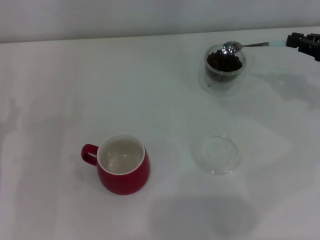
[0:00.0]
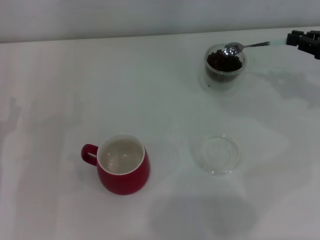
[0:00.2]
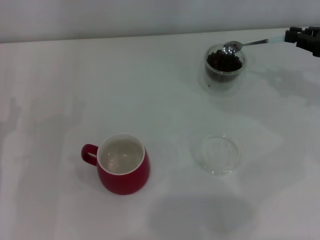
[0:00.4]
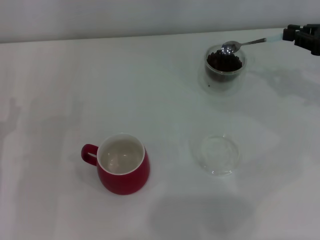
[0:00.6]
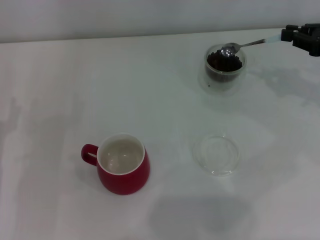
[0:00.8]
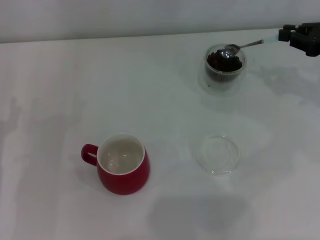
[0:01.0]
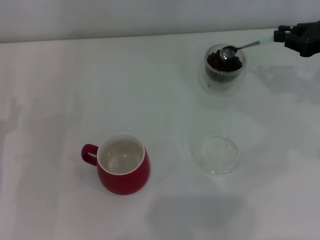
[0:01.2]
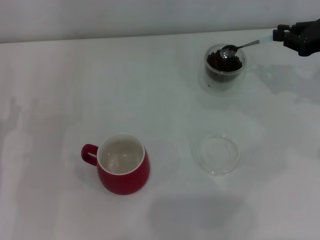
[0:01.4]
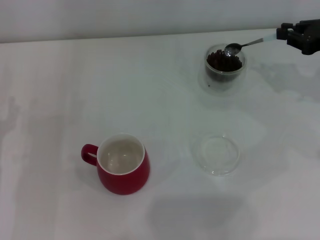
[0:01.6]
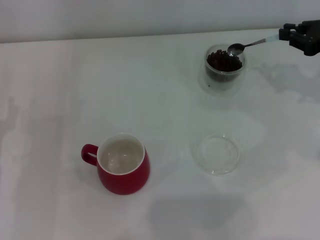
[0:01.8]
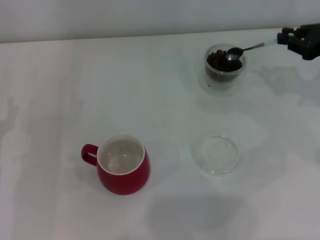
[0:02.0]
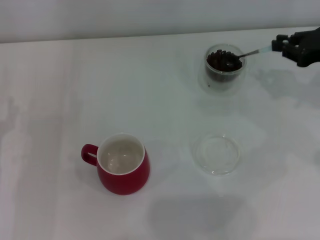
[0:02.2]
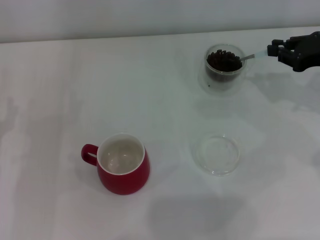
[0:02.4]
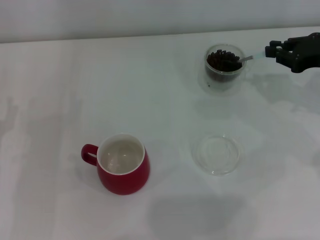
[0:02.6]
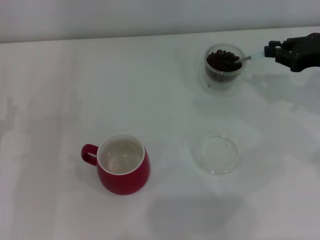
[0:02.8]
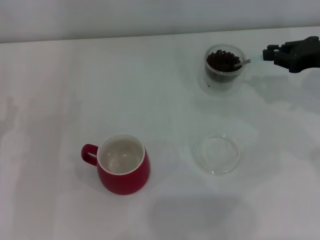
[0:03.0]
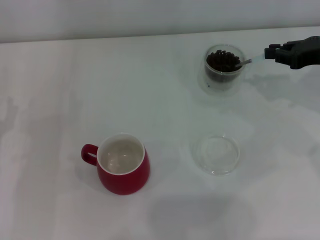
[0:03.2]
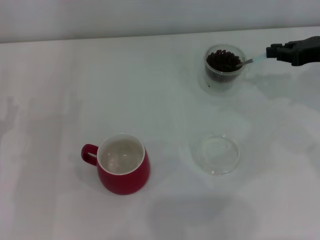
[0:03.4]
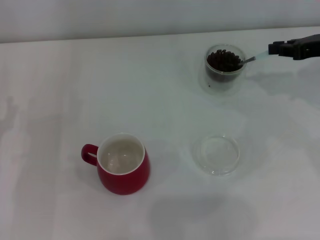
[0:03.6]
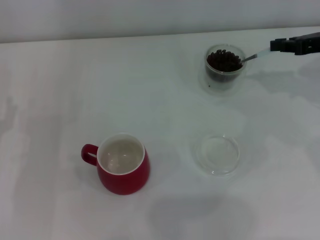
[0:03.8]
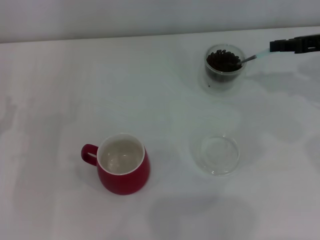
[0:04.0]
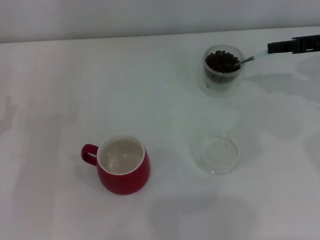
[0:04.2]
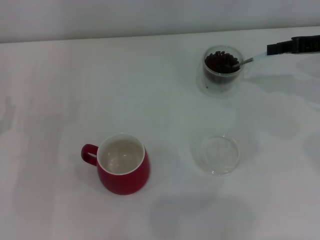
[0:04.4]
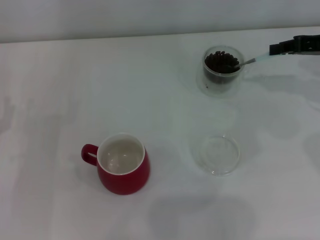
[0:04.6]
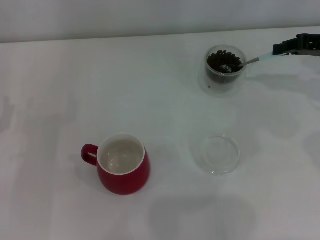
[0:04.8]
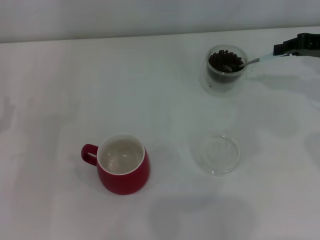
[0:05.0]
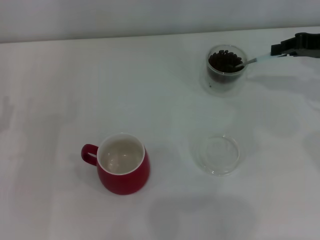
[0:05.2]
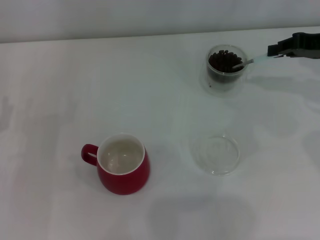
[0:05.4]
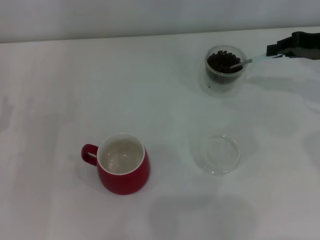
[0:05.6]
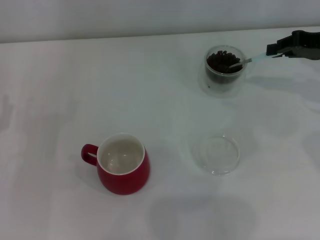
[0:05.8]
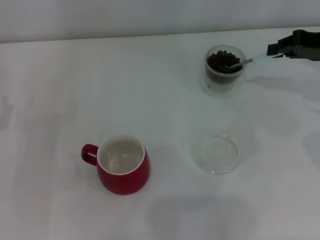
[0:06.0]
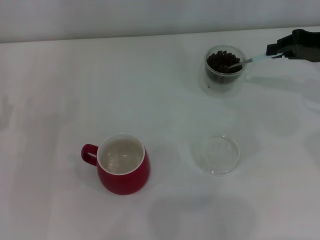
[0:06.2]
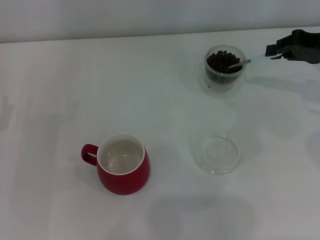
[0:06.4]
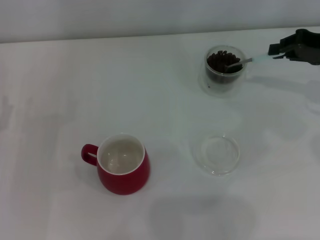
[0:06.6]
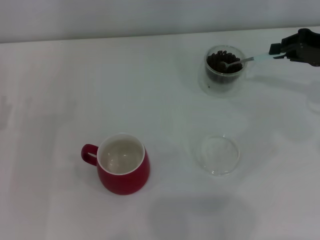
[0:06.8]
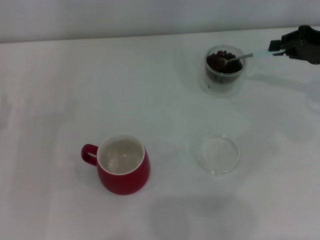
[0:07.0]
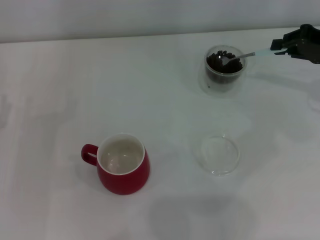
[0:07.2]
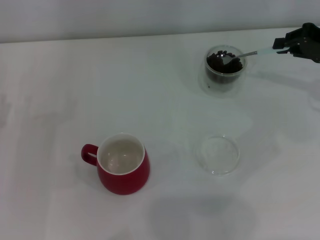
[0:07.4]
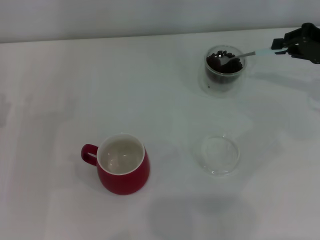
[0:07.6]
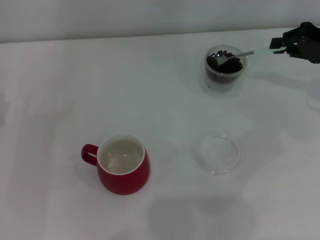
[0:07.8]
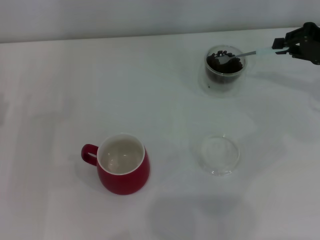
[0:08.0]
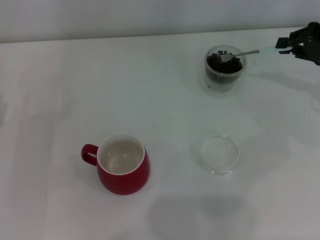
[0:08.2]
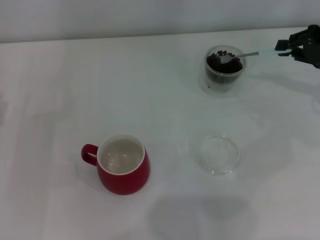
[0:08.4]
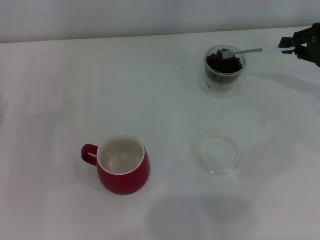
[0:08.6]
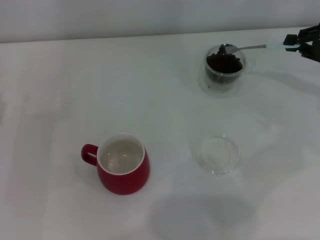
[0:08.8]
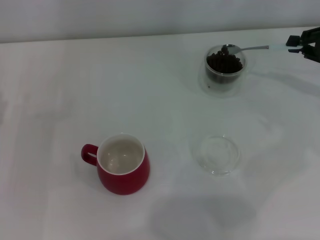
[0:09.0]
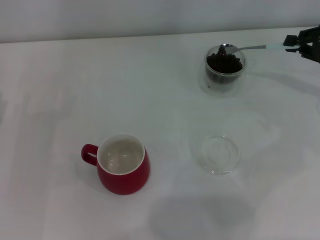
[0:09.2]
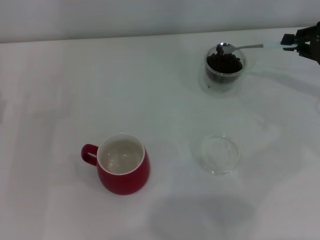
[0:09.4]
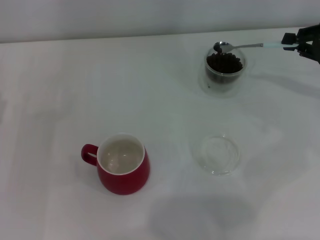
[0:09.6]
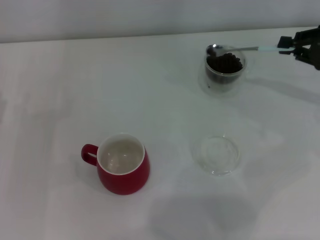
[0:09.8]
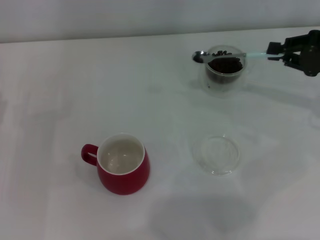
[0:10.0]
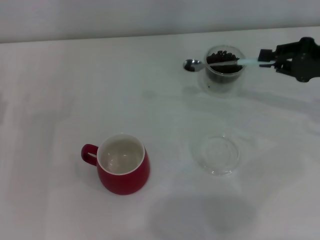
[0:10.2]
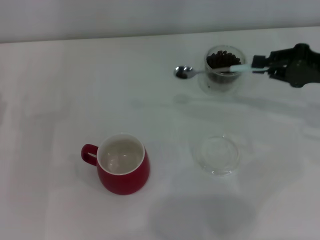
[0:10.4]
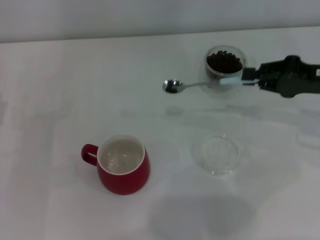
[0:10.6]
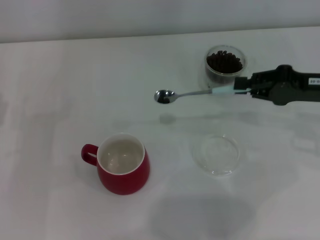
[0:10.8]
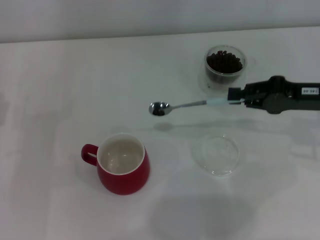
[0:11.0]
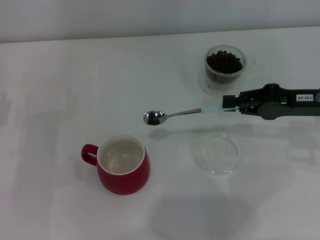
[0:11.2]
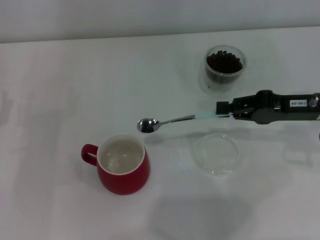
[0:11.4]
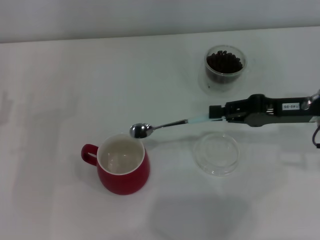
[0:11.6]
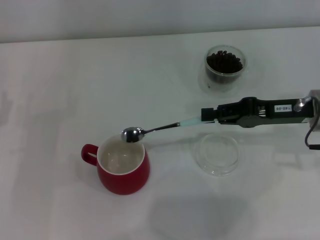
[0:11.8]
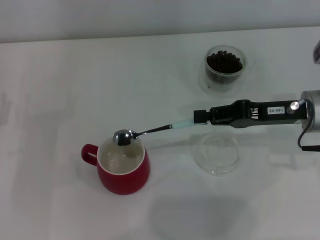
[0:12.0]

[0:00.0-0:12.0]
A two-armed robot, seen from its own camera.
Task of the whole recording: Use a blue spoon to take out the coffee beans from the glass and pour them into the red cup.
0:00.0 to 0:03.0: The grippers make only small movements.
0:04.4 to 0:06.0: The grippers make only small movements.
0:06.0 to 0:07.6: The grippers make only small movements.
0:07.6 to 0:09.0: The grippers stay close to where they were, moving slightly.
0:09.0 to 0:10.4: The right gripper ends up some 5 cm from where it was.
0:10.4 to 0:12.0: The right gripper heads to the left, covering approximately 10 cm.

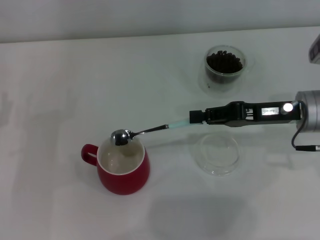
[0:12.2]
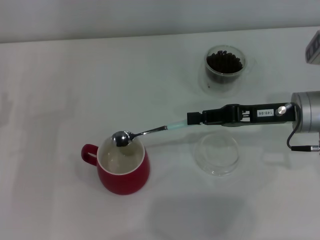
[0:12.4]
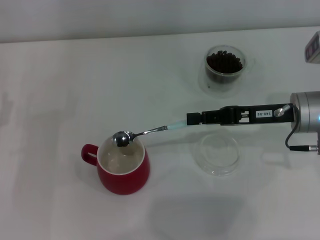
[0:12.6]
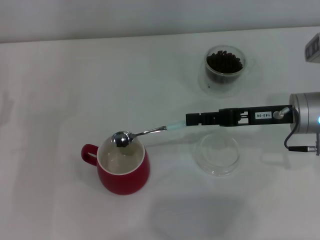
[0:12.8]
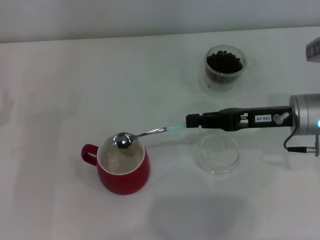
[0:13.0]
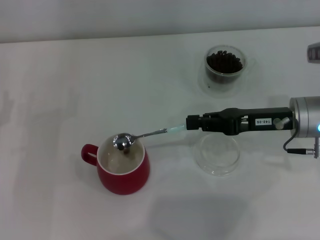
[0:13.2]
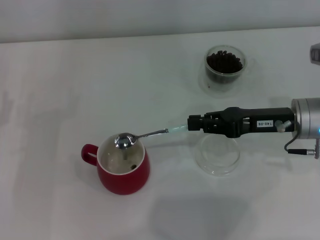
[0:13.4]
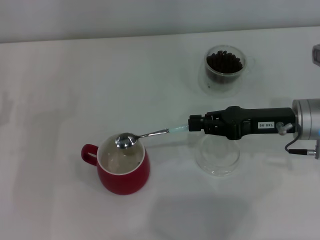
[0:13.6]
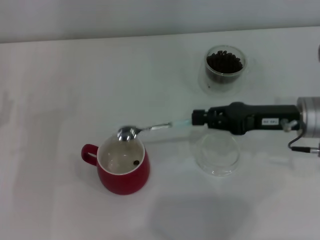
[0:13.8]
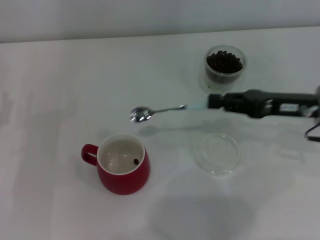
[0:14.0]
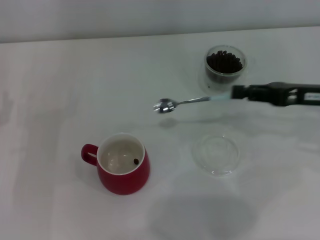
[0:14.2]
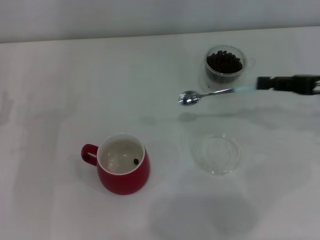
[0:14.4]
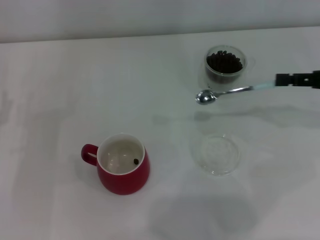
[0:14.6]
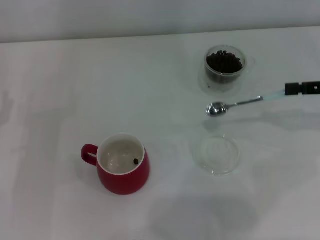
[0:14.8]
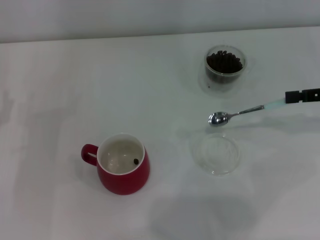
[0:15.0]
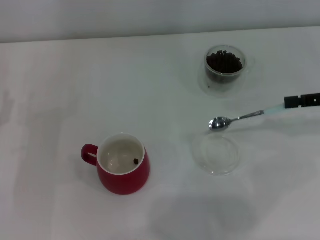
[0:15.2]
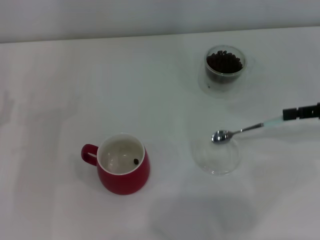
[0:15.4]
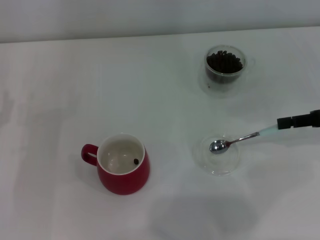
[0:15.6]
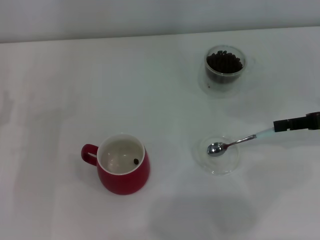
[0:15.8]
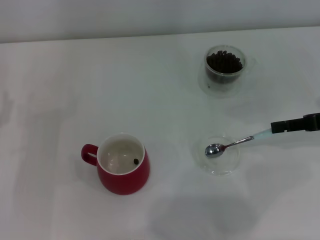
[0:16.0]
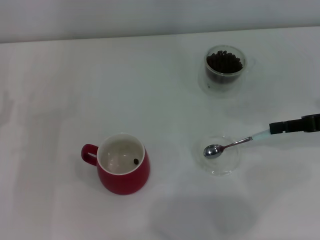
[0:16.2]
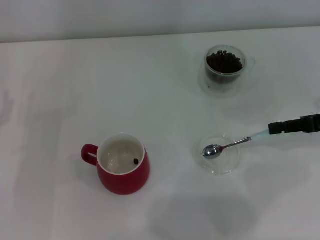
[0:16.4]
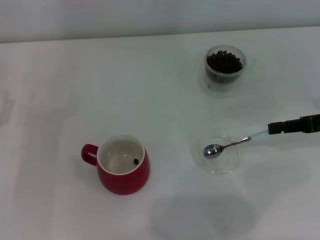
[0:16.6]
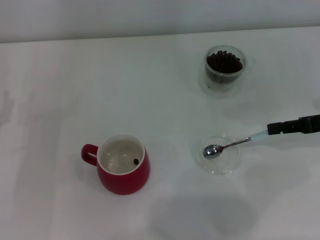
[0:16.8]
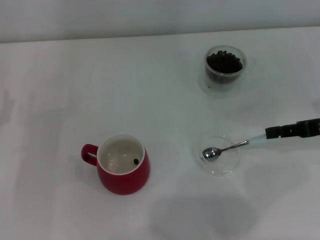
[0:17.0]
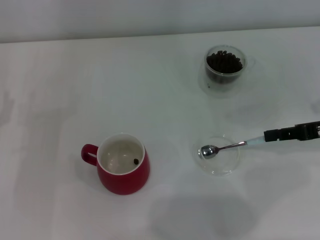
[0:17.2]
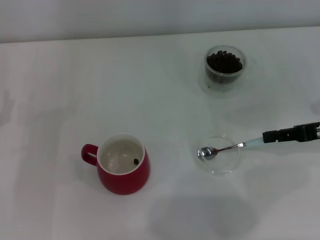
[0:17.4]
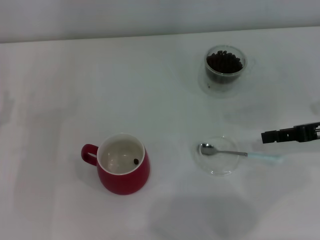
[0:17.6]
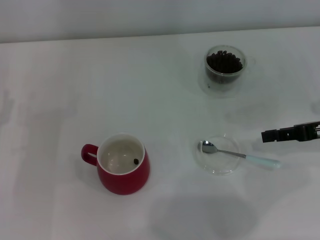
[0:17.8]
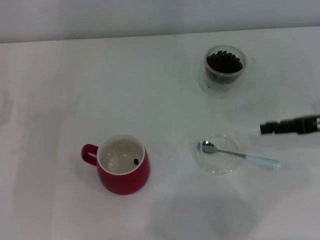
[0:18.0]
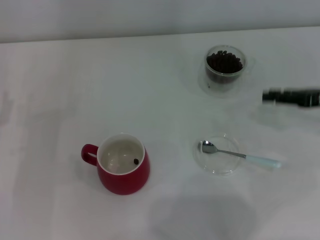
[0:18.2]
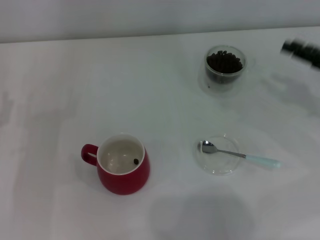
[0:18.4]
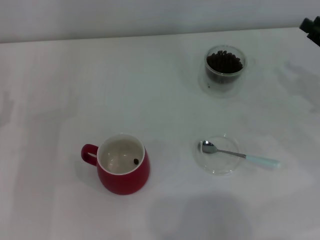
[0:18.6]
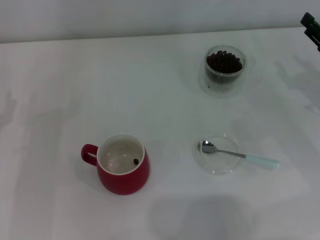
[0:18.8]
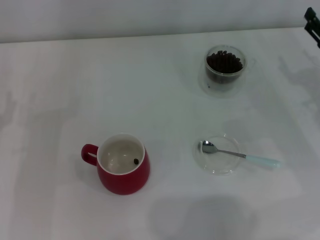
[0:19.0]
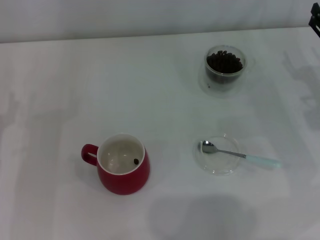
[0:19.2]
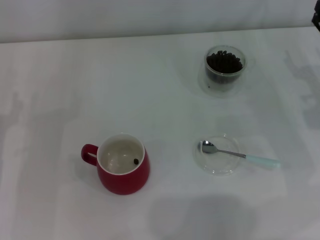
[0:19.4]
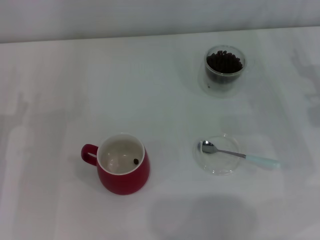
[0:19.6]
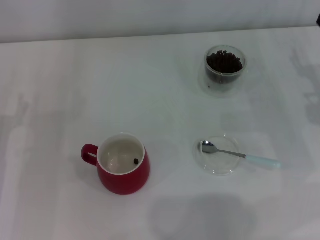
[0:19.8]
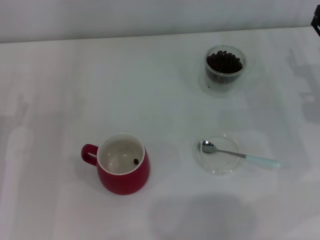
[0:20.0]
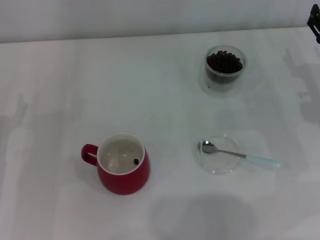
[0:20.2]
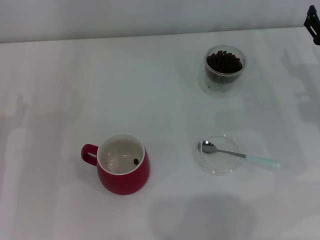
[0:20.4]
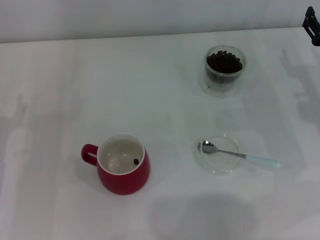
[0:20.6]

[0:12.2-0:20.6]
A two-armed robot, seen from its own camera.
Task of the whole recording: Use a blue spoon to take out the coffee beans from the glass and pour them into the red cup.
Step, 0:13.6 to 0:17.4: Place the spoon back in its original place with the right gripper.
0:13.6 to 0:15.0: The right gripper shifts roughly 15 cm to the right and upward.
0:15.0 to 0:17.8: The grippers stay close to where they were, moving slightly.
0:17.8 to 0:19.2: The right gripper opens.
